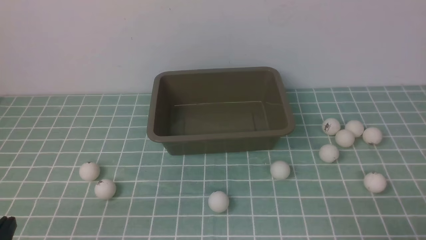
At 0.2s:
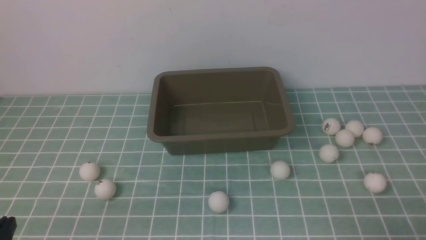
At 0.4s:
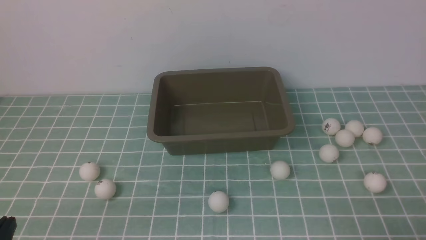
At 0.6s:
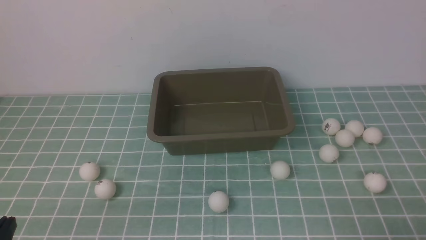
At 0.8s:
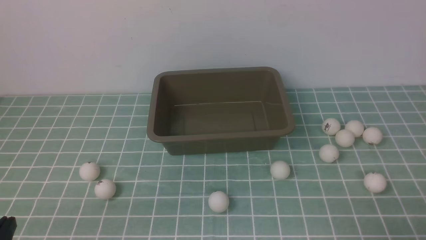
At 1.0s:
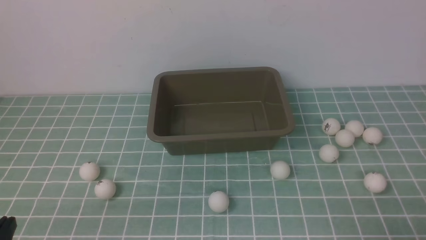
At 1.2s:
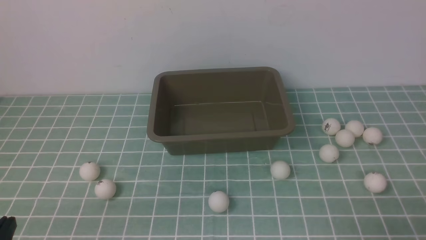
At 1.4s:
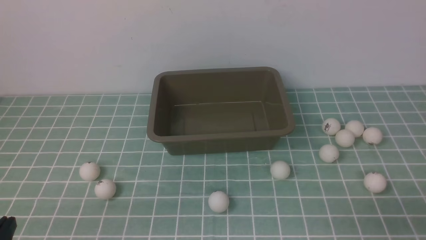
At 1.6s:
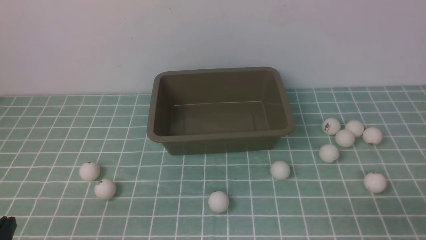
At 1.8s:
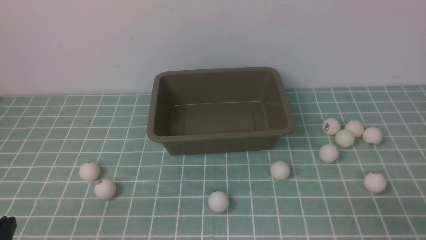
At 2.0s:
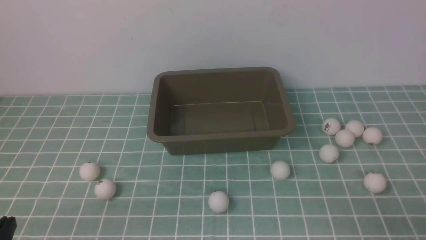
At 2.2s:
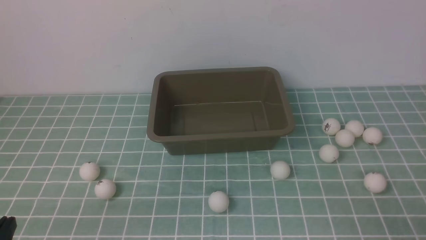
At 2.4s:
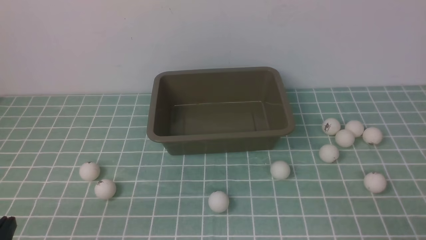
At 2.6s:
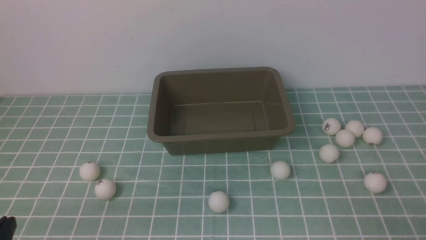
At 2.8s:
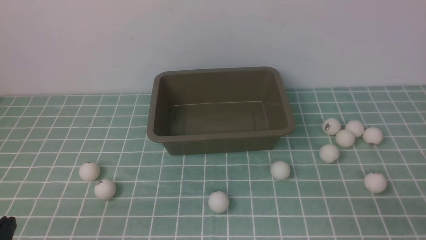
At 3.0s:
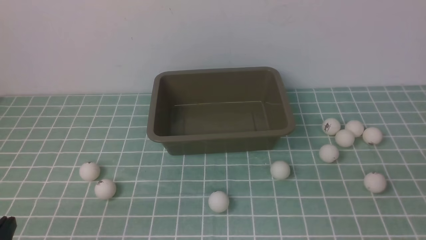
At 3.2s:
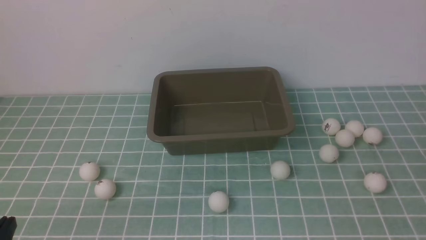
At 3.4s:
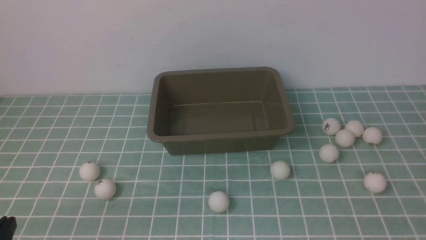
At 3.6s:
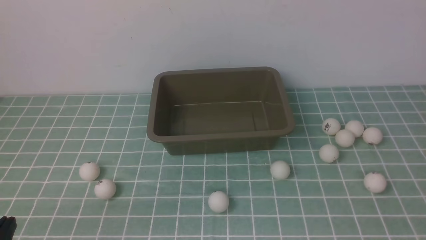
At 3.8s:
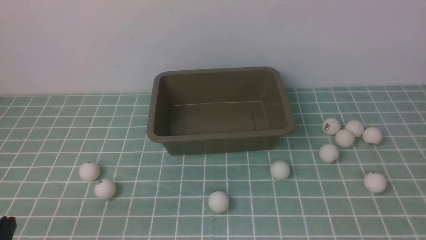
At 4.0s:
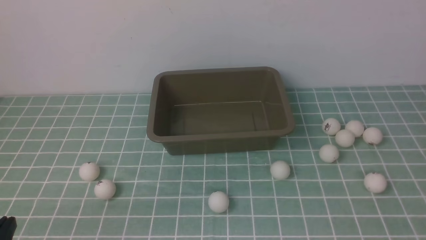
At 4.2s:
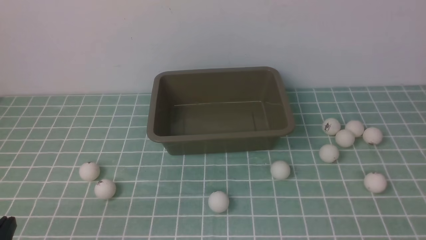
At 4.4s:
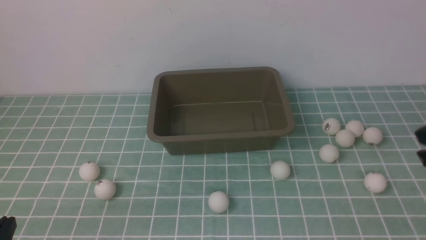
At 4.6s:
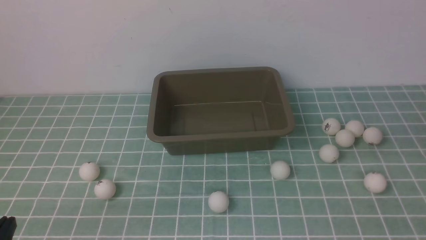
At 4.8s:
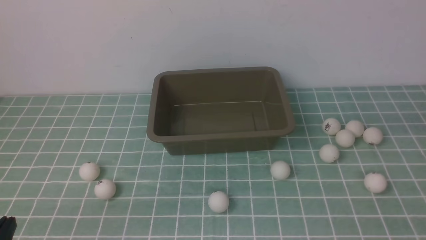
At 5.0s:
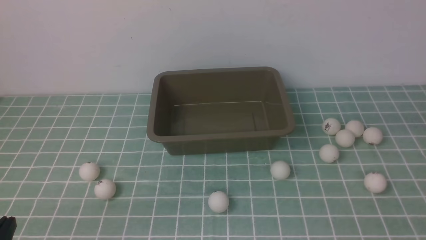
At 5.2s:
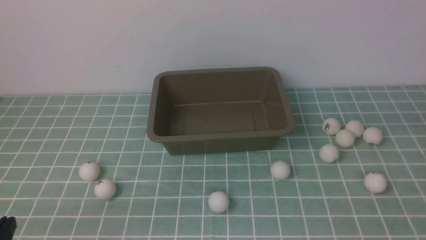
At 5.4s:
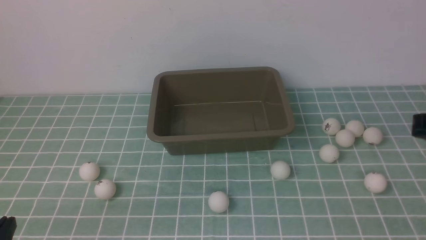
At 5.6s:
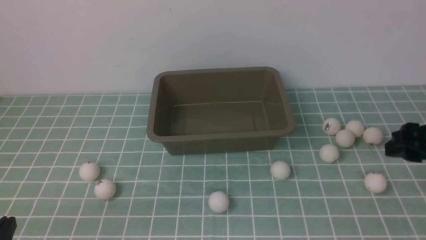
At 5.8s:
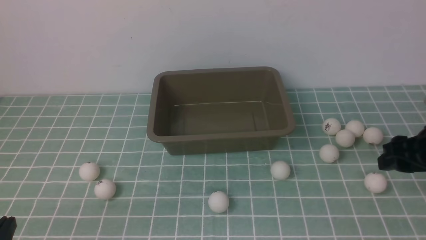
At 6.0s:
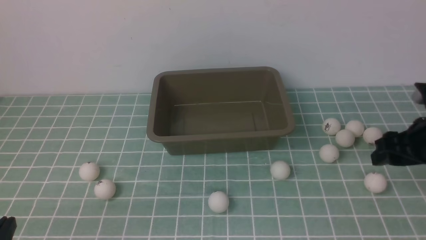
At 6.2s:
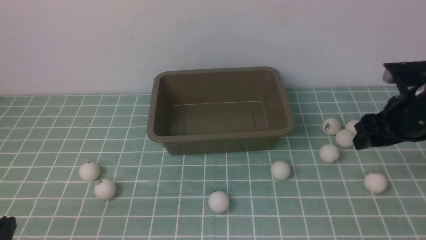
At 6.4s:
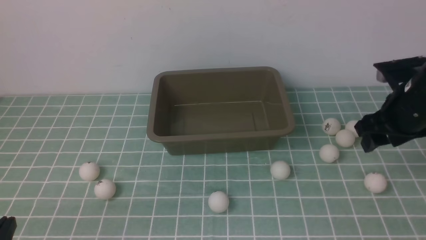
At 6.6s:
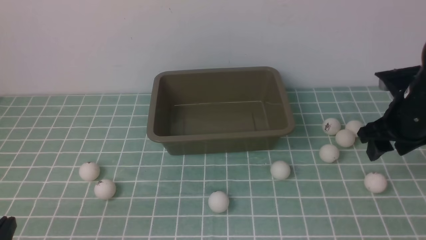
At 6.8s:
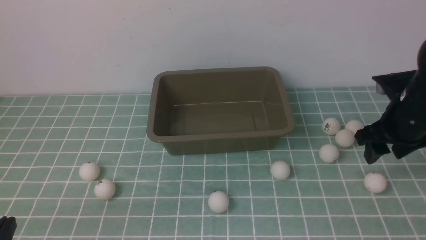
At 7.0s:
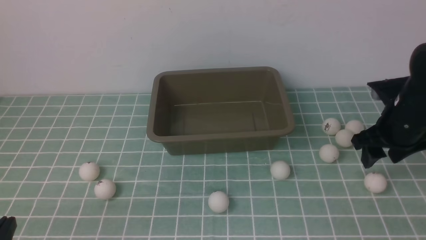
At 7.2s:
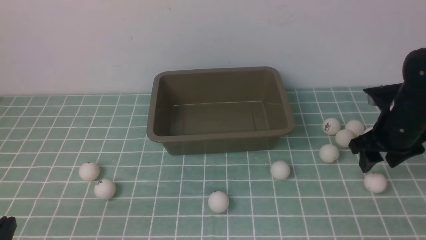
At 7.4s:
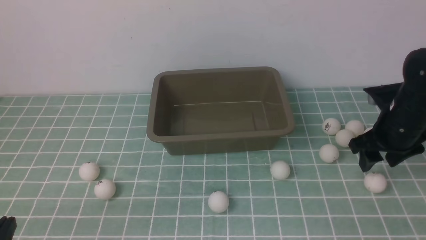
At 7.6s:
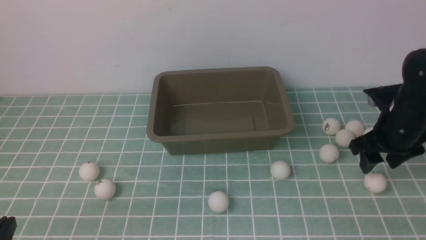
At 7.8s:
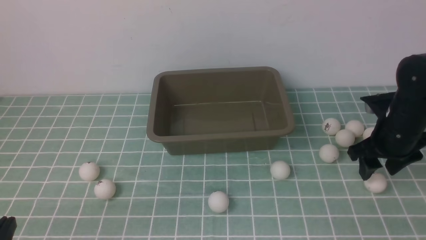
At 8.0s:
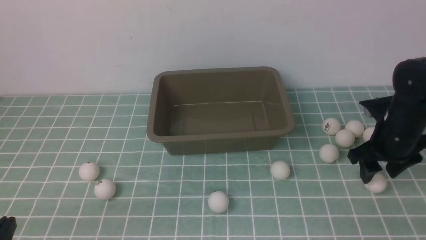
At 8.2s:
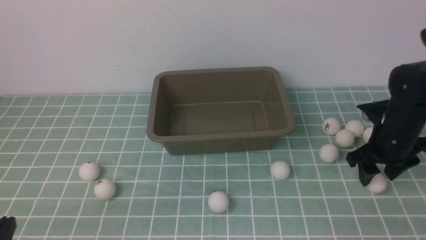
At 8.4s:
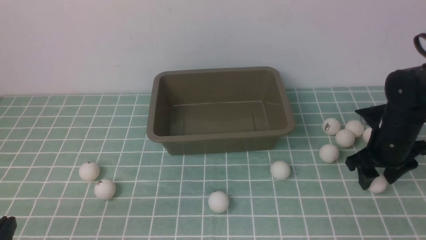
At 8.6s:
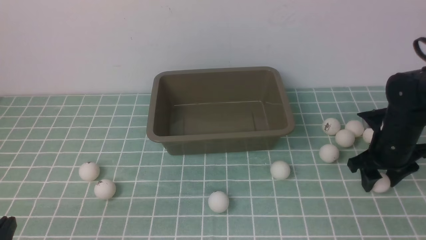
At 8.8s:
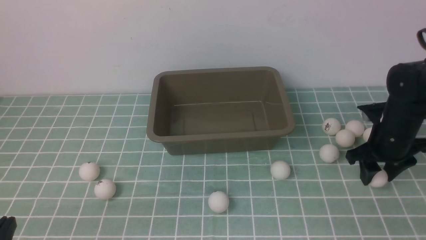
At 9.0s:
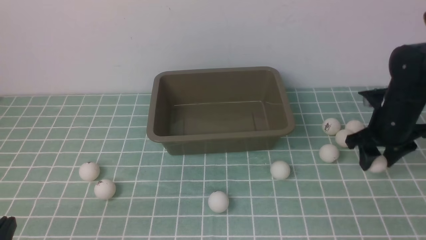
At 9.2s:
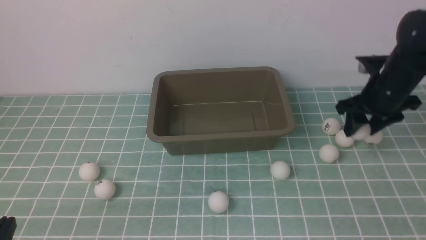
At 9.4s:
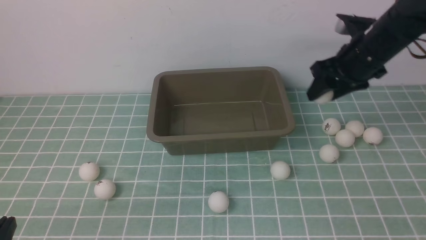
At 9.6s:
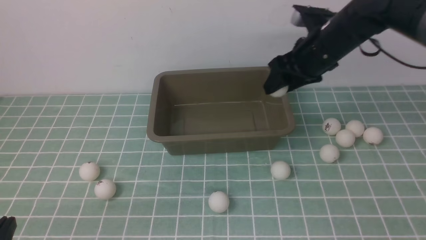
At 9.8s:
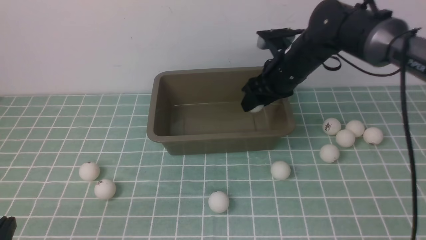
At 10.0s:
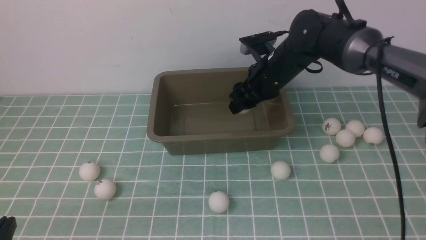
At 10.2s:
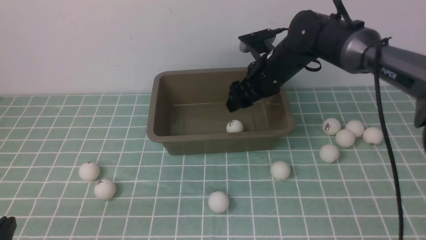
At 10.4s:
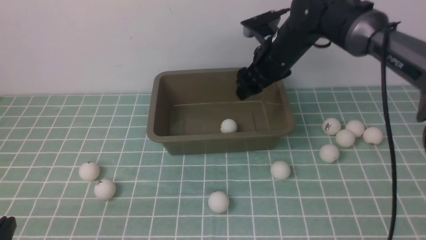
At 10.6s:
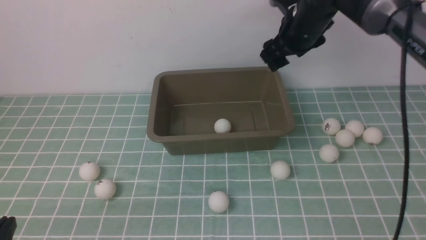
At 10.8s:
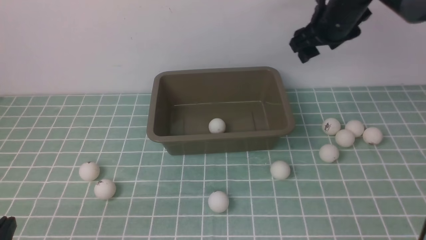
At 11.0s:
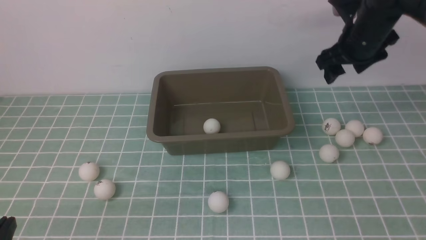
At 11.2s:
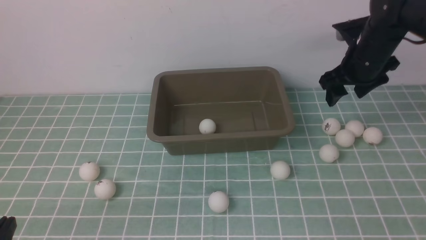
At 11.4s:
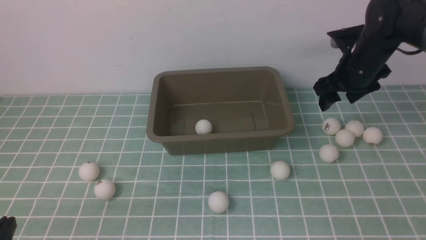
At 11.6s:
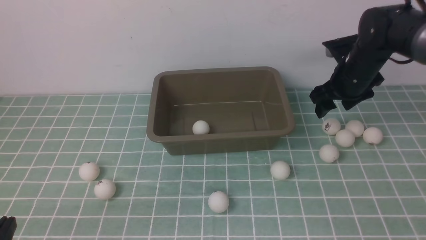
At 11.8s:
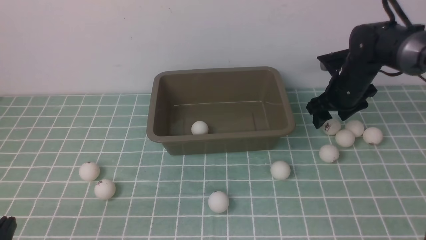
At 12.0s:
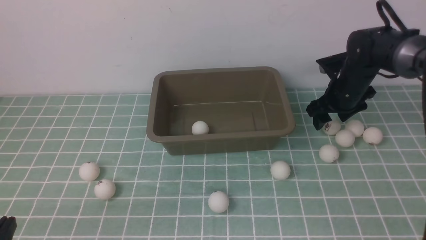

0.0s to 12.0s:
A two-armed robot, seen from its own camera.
Step, 0.0s to 8.8s: use the right arm to clamp the table tennis ball closest to it.
Step, 9.0s to 10.2s: use the right arm to put the table tennis ball into the box.
4.4s to 6.0s: The right gripper travels downward and forward by roughly 10 cm, and opens its fingers.
6.0s to 7.6s: The right gripper heads forward, covering roughly 5 cm.
7.6s to 9.0s: There are only small adjustments of the grippers.
9.0s to 10.4s: The right gripper goes approximately 20 cm to the left, upward and forward.
10.4s to 12.0s: The right gripper is displaced to the right and downward by roughly 15 cm.

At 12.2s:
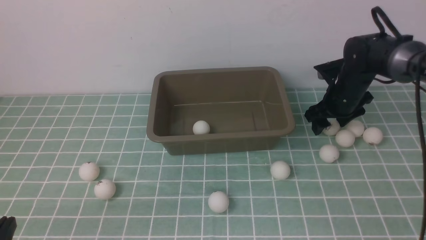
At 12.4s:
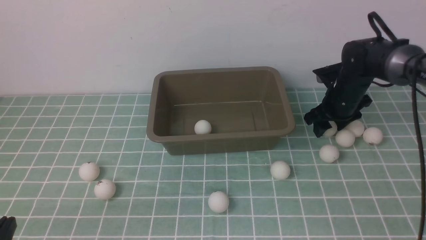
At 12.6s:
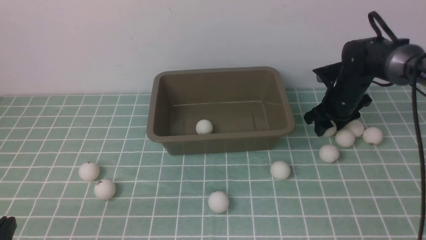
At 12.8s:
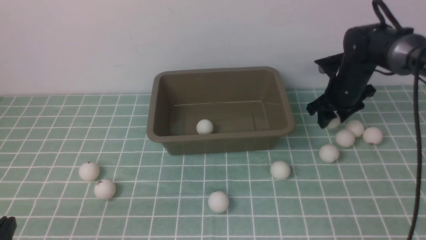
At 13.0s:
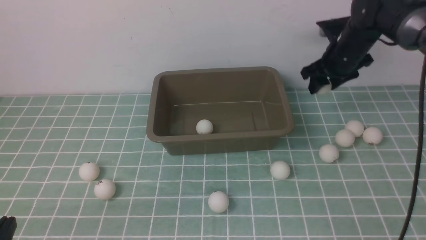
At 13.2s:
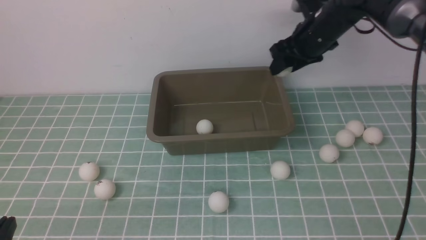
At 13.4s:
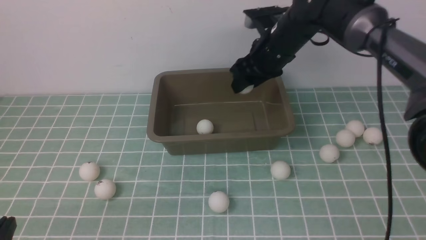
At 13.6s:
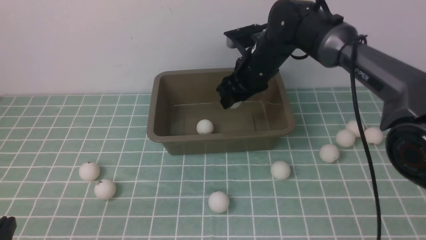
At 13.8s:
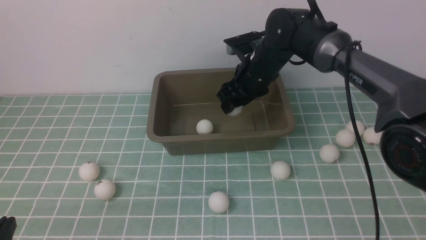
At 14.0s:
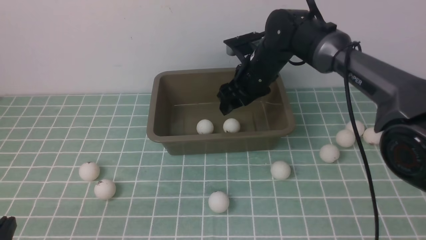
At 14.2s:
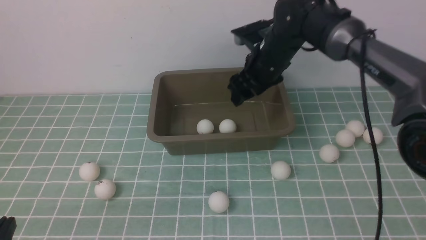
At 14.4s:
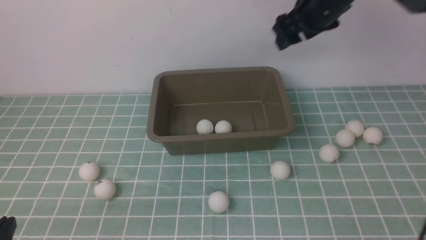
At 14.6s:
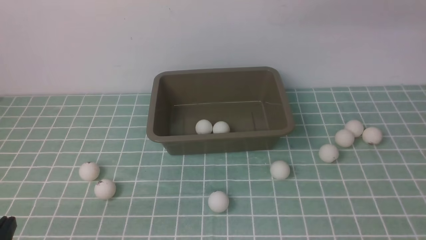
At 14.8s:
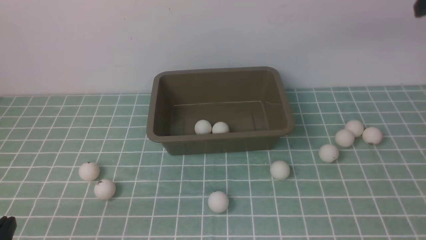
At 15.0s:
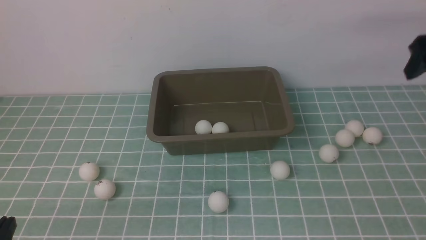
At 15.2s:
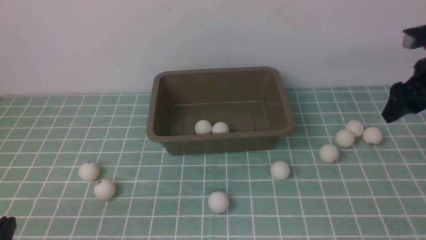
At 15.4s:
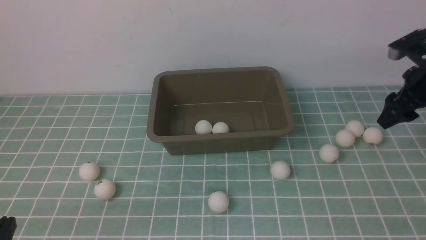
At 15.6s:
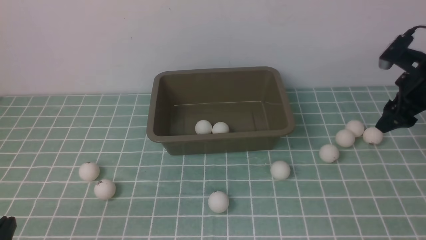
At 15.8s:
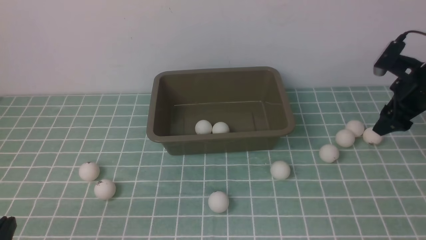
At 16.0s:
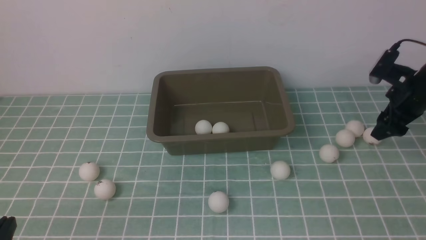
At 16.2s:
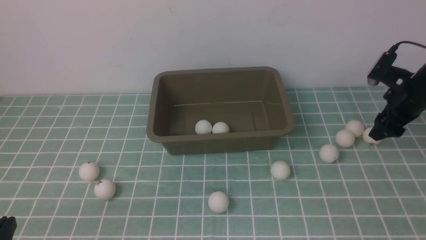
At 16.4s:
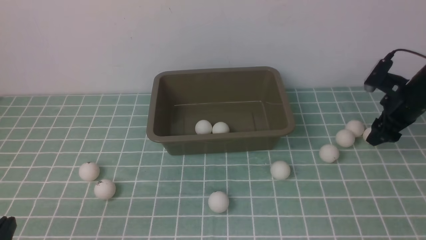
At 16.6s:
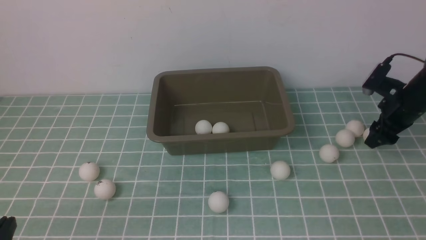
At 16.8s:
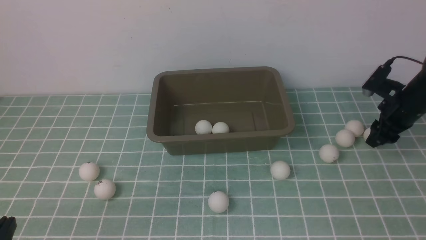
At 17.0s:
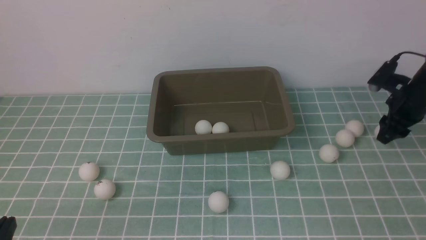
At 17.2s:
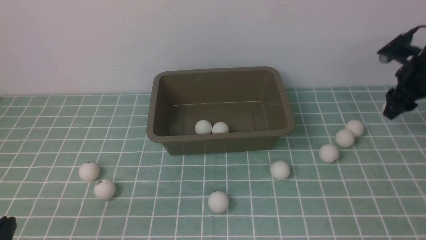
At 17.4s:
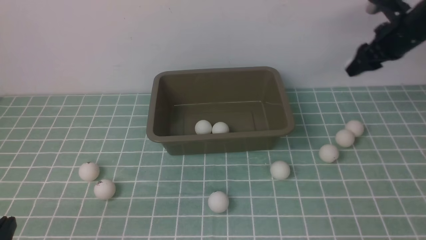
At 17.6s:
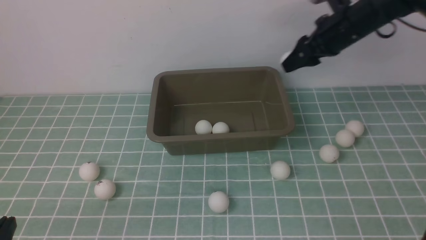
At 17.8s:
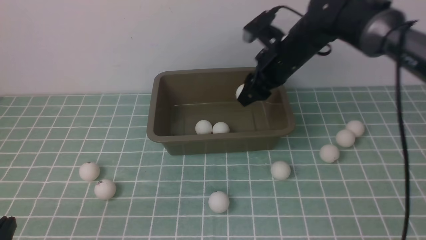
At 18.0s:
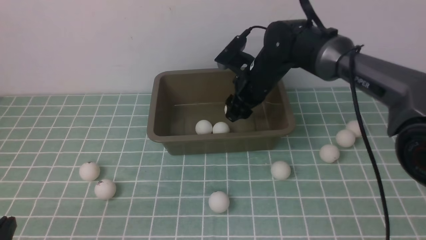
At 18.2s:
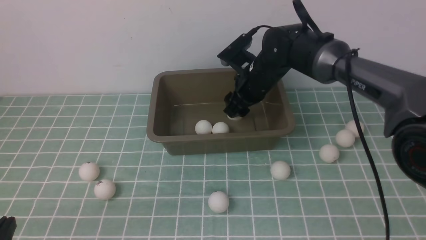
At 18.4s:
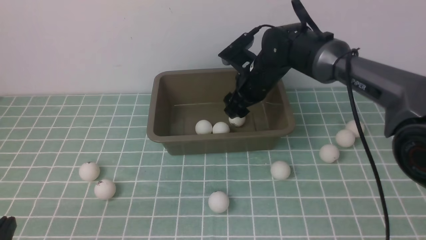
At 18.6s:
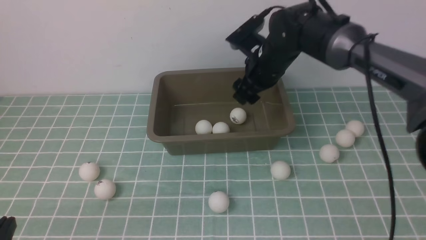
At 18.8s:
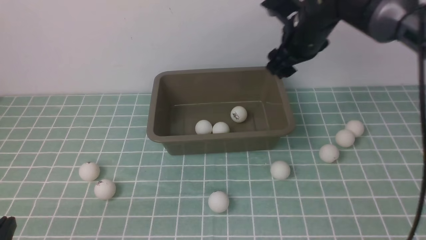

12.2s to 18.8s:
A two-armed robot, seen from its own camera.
Step, 12.8s to 13.8s: use the right arm to put the table tennis ball into the box.
Step, 14.2s to 17.0s: use the right arm to clamp the table tennis ball closest to it.
Step, 17.2s to 18.4s: use the right arm to put the table tennis ball into the box.
12.2s to 13.8s: The right gripper travels upward and to the left by about 20 cm.
13.8s to 15.4s: The right gripper is displaced to the right and downward by roughly 20 cm.
15.4s to 17.2s: The right gripper goes approximately 5 cm forward, and reaches approximately 5 cm downward, then returns.
17.2s to 18.8s: The right gripper travels upward by some 10 cm, and reaches about 25 cm to the left, then returns.
